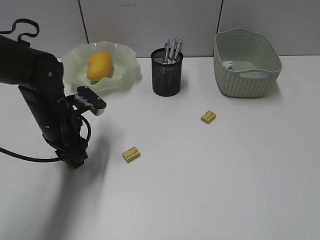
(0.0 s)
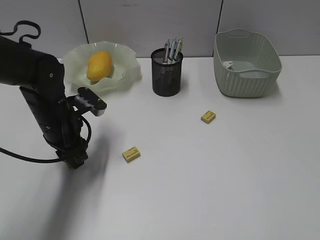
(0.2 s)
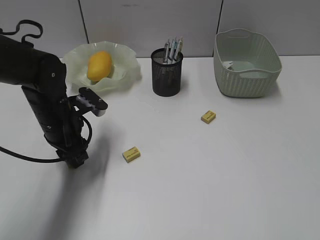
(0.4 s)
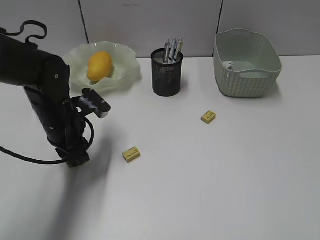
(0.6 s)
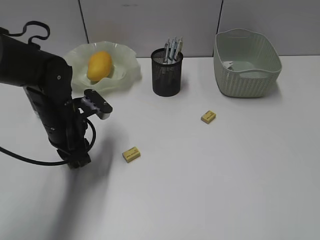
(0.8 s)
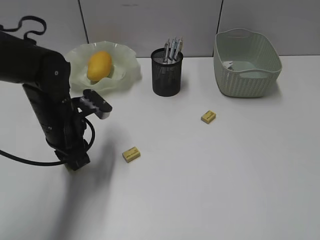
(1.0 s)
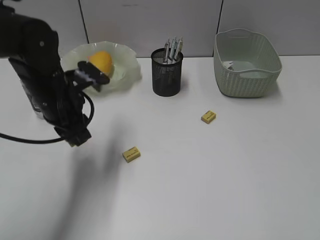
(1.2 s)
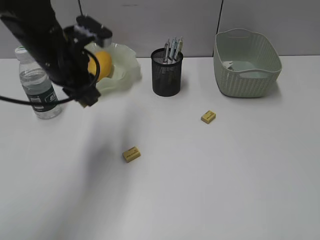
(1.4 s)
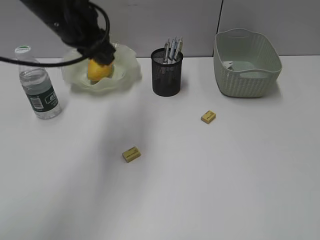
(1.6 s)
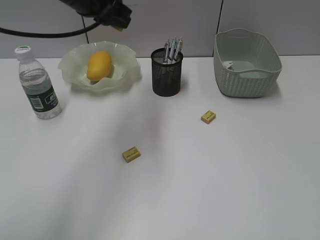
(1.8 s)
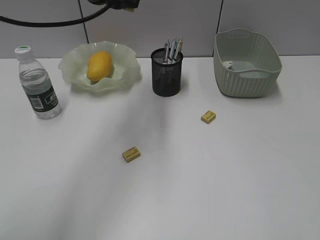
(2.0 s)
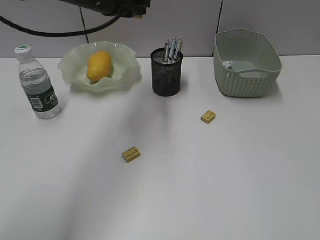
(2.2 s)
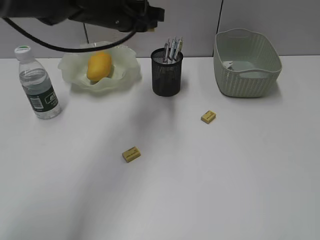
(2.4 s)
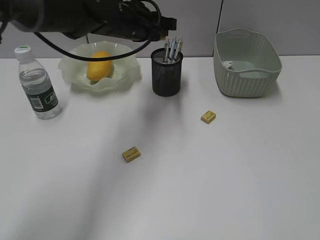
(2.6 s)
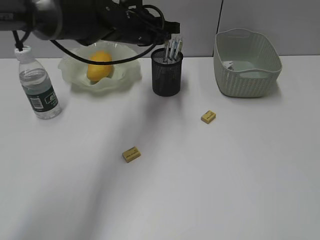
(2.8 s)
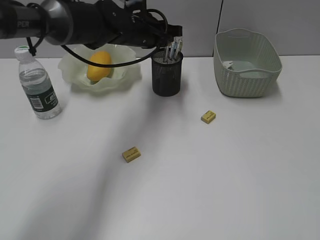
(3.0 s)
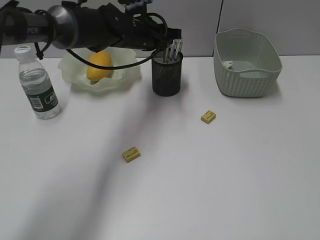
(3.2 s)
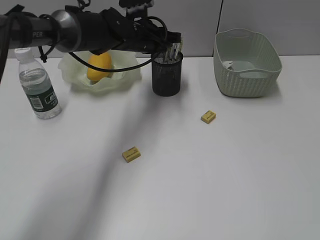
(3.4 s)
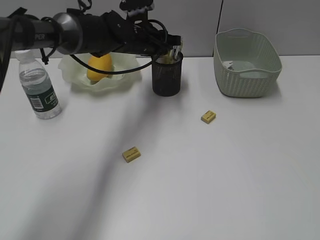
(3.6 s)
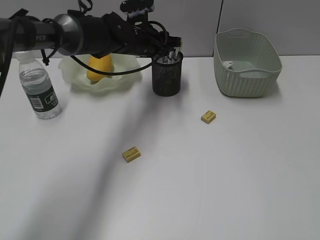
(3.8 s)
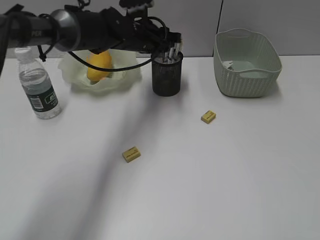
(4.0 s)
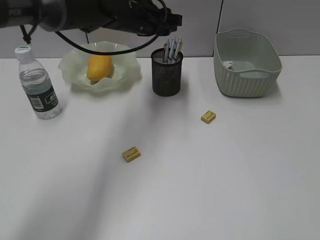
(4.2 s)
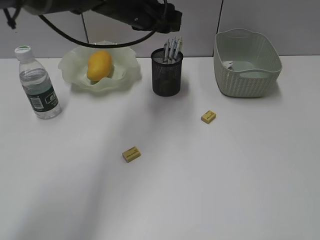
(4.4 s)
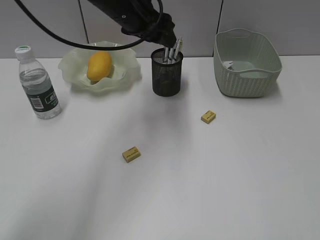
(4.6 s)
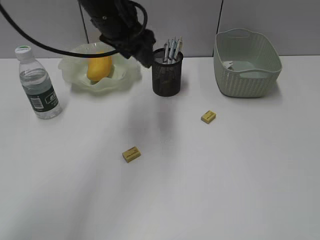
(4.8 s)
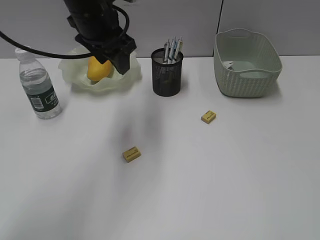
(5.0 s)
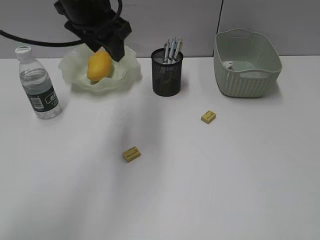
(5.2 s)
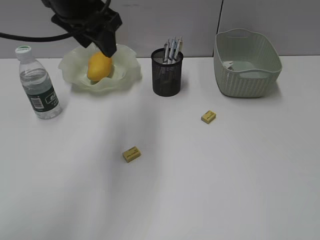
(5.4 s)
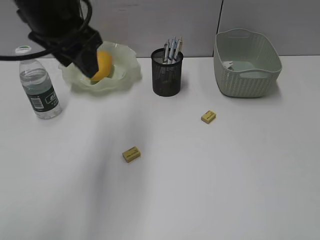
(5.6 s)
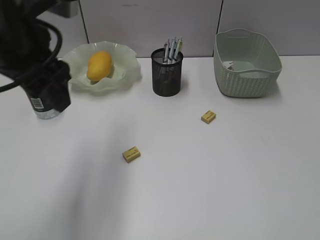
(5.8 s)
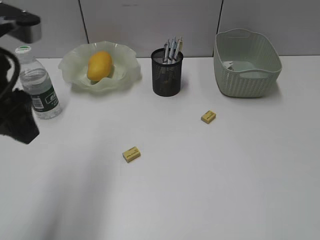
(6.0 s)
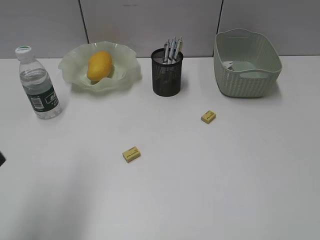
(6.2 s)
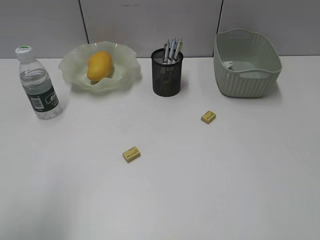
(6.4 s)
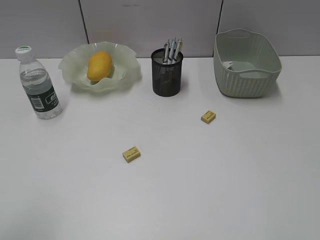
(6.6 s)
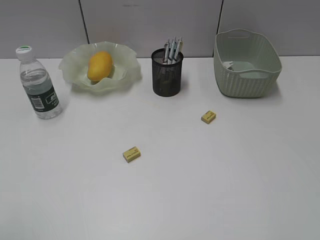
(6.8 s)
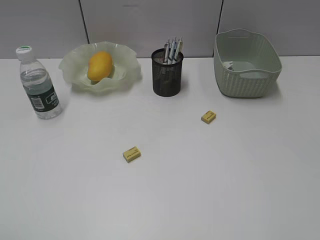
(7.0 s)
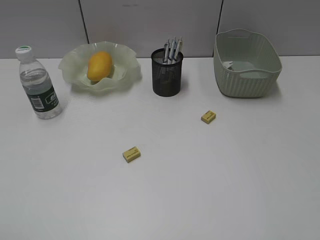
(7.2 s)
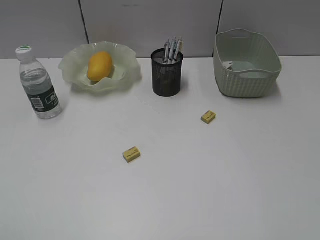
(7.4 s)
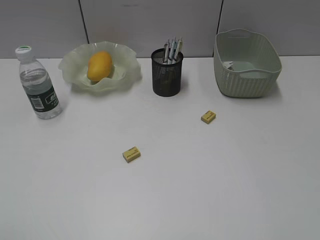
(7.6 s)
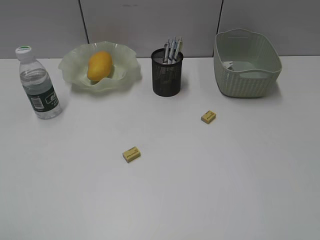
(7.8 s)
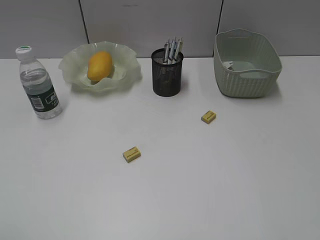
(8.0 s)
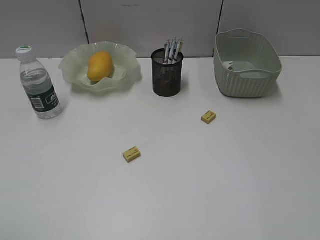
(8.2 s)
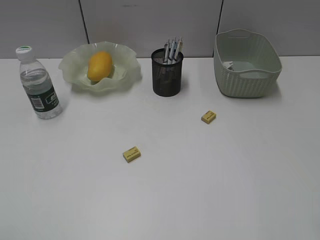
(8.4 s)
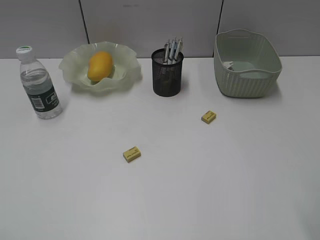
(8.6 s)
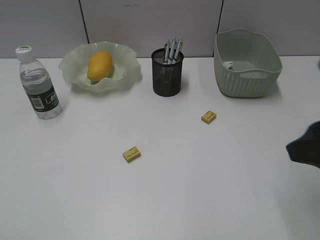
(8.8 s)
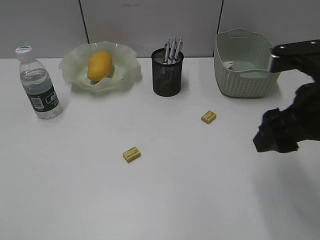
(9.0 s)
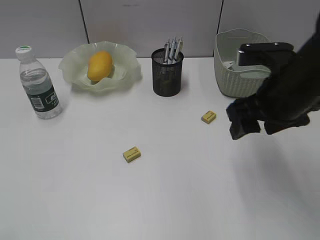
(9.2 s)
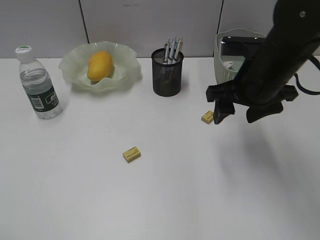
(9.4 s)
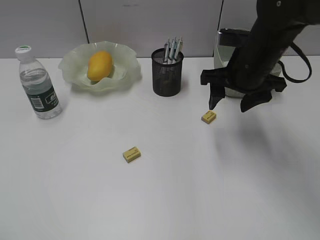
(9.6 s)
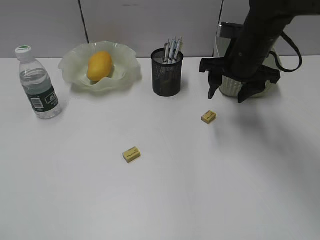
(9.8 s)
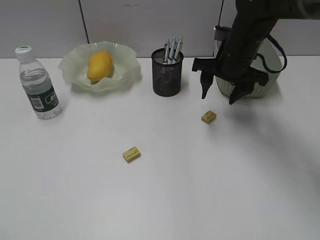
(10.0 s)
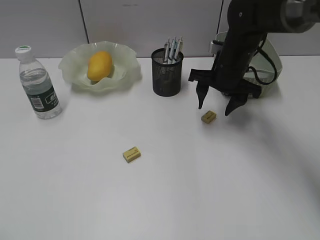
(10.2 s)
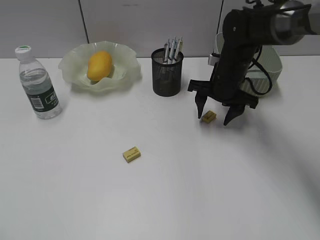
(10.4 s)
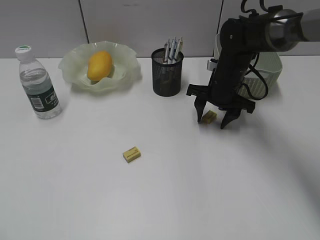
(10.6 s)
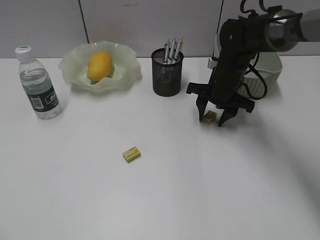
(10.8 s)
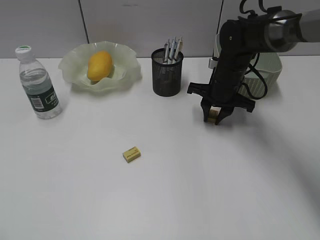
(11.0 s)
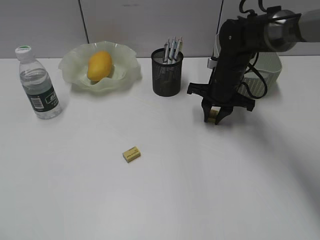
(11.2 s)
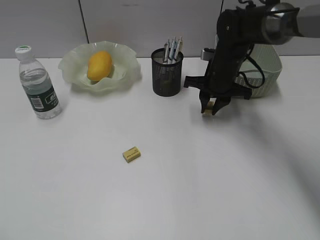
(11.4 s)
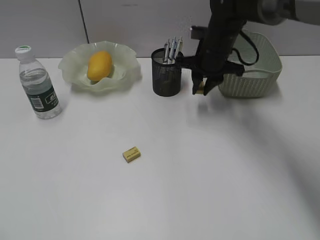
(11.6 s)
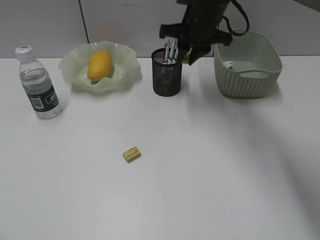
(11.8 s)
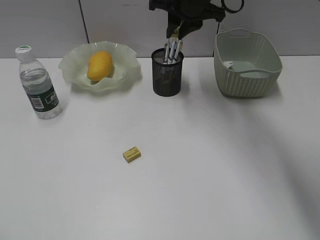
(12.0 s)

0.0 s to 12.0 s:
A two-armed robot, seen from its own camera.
Step, 1.0 to 3.8 s: Place the eraser in pen holder with left gripper.
Step, 4.0 to 11.0 s: Grasp the eraser with right gripper.
0.0 to 1.6 s: The left gripper goes roughly 15 cm upward.
1.6 to 3.0 s: The left gripper travels forward, to the right and downward by roughly 15 cm.
3.0 to 4.4 s: The left gripper heads upward, covering approximately 5 cm, and opens its fingers.
4.4 to 6.0 s: The left gripper moves backward and to the left, approximately 30 cm.
6.0 to 7.6 s: The left gripper heads backward and to the left, covering approximately 25 cm.
7.6 to 9.0 s: The right gripper travels forward and to the left by roughly 20 cm.
9.0 to 10.4 s: The right gripper heads forward and downward, covering approximately 25 cm.
10.4 to 12.0 s: The right gripper shifts some 15 cm upward and to the left, and closes its fingers.

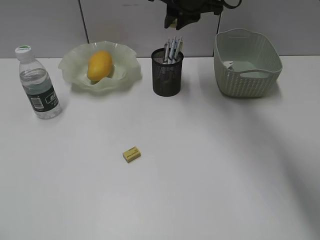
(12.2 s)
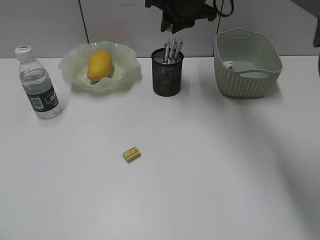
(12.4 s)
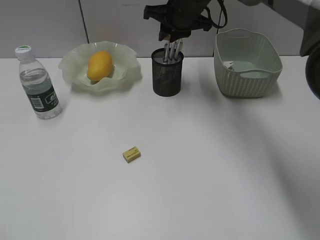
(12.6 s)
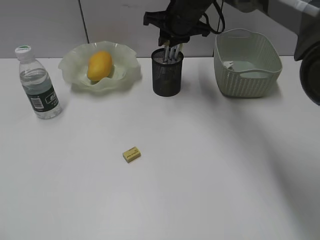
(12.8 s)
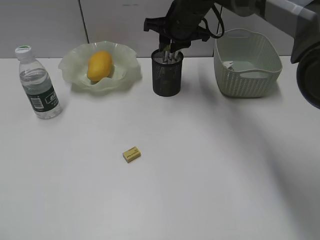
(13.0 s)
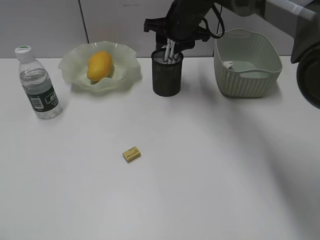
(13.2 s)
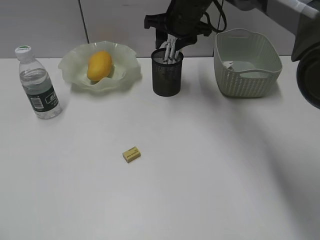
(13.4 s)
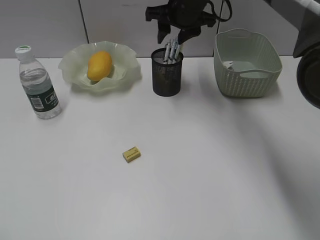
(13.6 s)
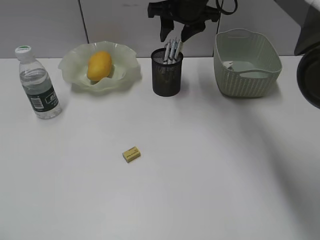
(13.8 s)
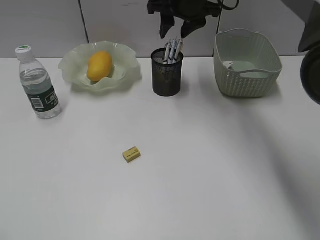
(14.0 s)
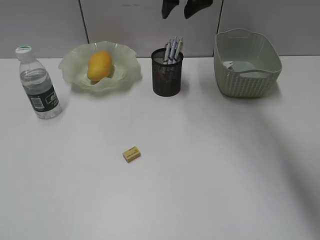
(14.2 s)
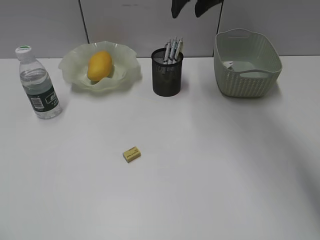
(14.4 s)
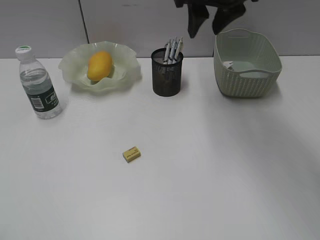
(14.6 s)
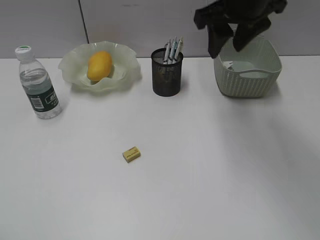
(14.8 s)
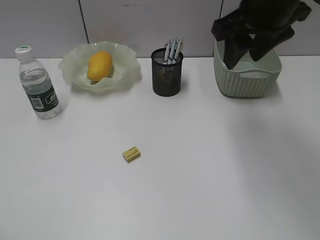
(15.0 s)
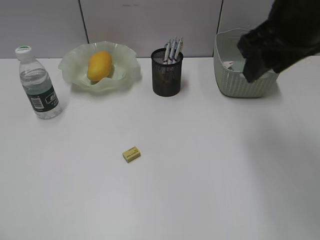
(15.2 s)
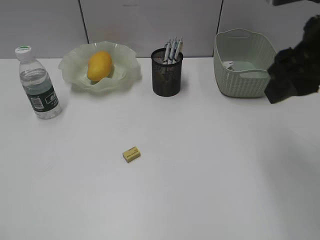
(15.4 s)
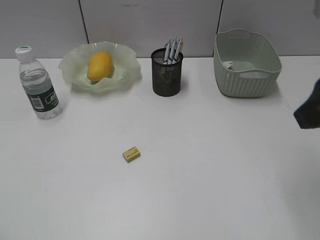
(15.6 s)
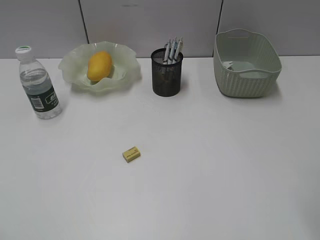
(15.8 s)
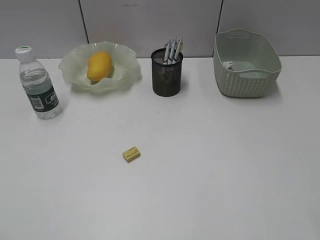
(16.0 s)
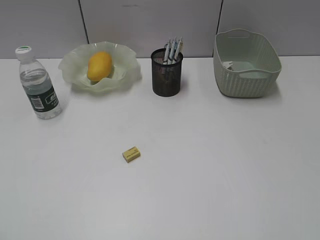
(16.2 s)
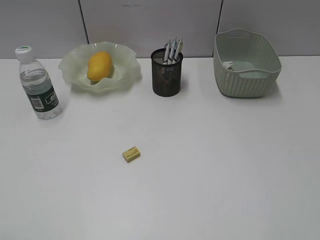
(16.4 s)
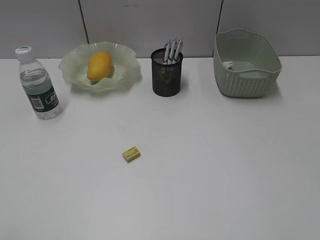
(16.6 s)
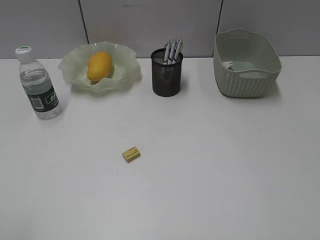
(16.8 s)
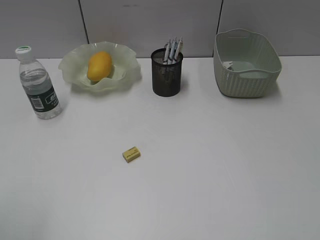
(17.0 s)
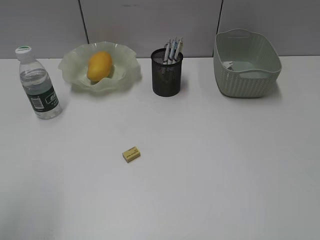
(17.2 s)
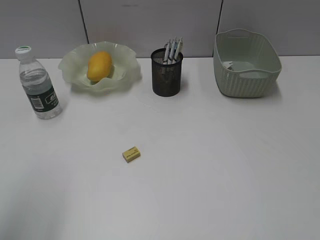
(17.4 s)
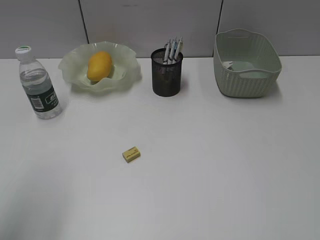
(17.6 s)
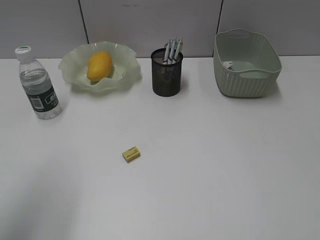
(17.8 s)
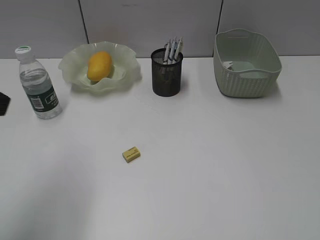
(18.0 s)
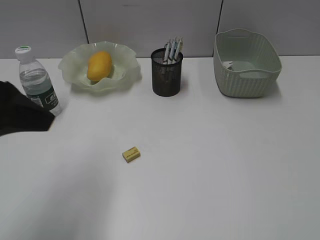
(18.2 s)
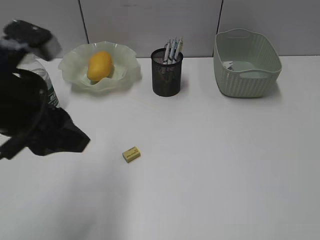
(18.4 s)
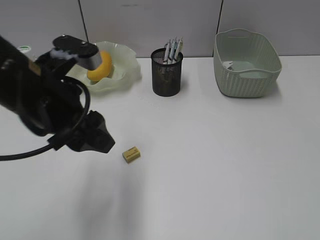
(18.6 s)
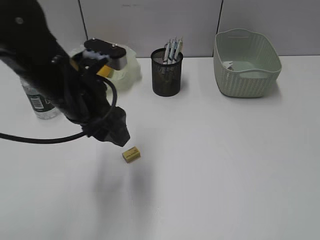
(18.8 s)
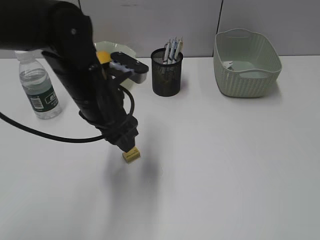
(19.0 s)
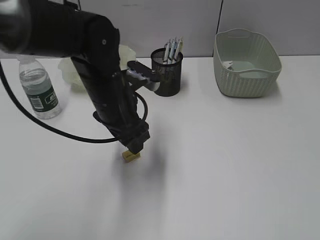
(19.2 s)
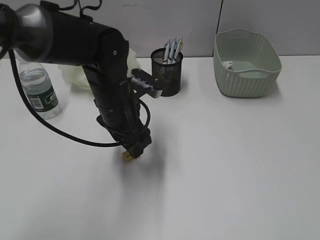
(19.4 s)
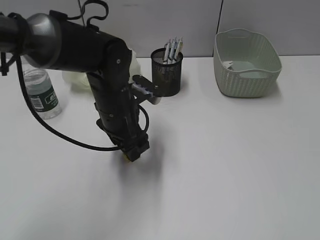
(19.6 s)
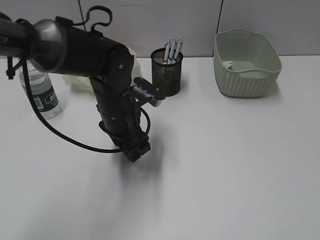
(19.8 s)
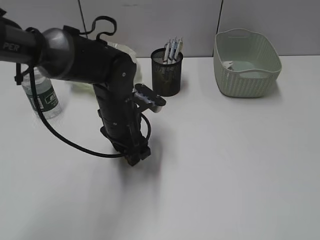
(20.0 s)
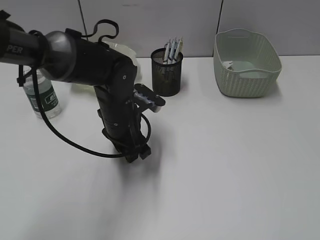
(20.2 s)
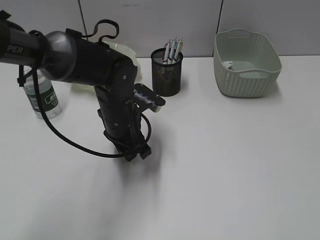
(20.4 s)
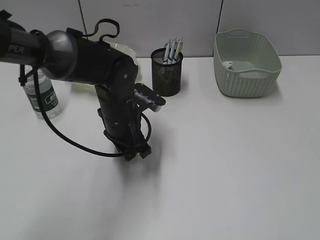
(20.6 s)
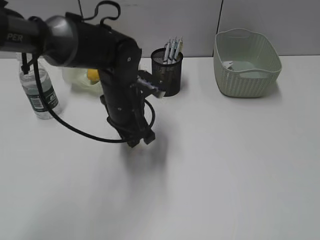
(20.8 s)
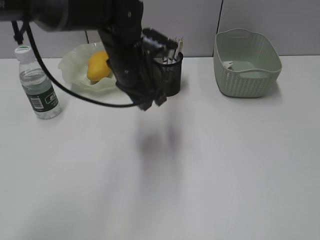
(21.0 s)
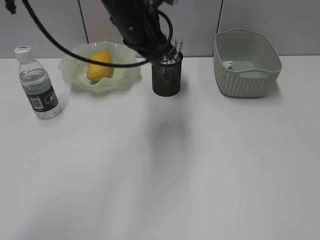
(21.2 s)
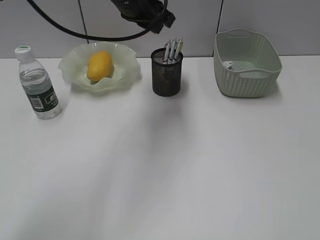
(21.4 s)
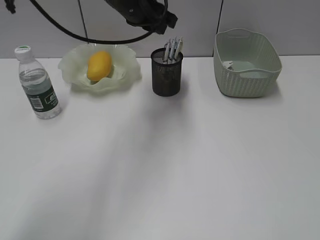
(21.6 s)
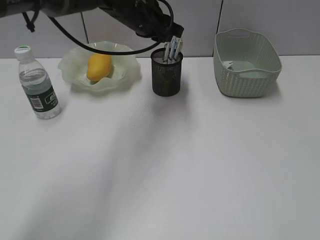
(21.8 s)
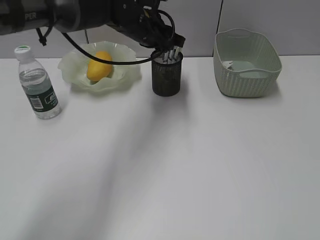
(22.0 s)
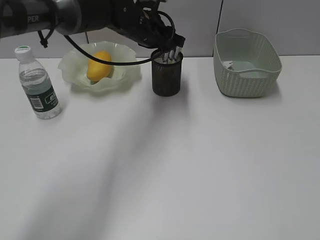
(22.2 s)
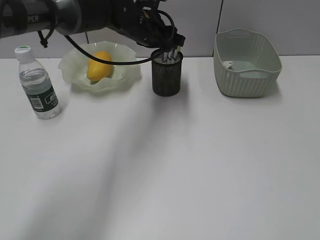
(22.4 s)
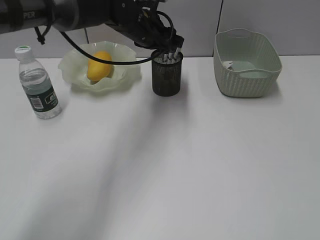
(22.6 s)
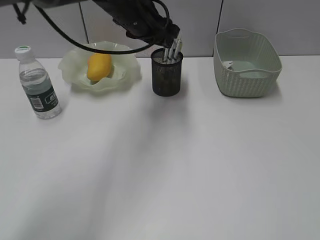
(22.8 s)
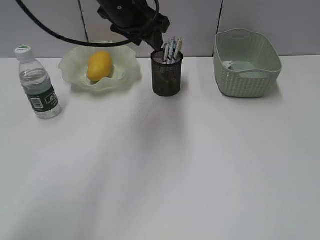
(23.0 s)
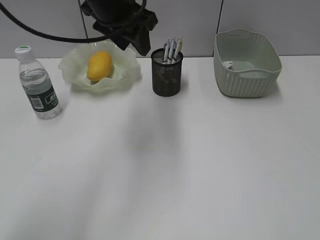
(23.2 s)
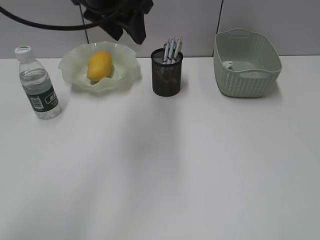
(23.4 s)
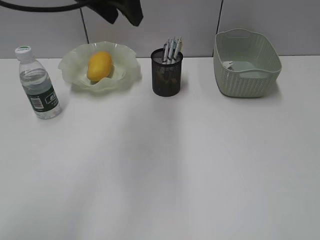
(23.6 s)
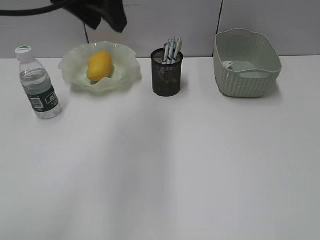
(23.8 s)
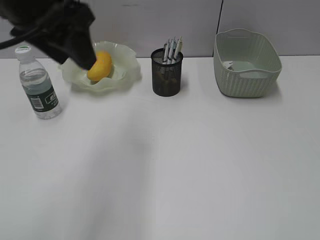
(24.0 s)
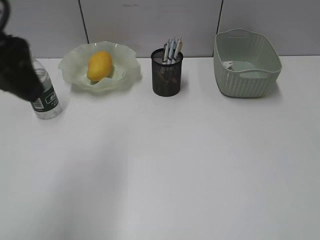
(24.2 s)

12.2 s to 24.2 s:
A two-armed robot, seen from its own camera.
Step, 12.2 to 13.4 s: Place the eraser in pen holder with right gripper.
Step, 13.6 to 20.4 s: Grasp the eraser with left gripper.
Step, 20.6 to 22.2 s: Place the eraser in pen holder with left gripper.
12.2 to 13.8 s: The right gripper opens its fingers.
13.8 to 15.2 s: The right gripper heads backward and to the right, covering some 25 cm.
15.2 to 16.6 s: The right gripper goes roughly 30 cm backward and to the right.
16.6 to 18.2 s: The left gripper travels forward and to the right by some 20 cm.
18.2 to 19.8 s: The left gripper heads downward, to the right and forward, covering roughly 25 cm.
19.8 to 21.2 s: The left gripper goes roughly 15 cm upward and forward, and closes.
21.2 to 22.6 s: The left gripper heads forward and downward, covering some 10 cm, and opens up.
22.6 to 24.2 s: The left gripper heads backward, to the left and upward, covering roughly 30 cm.
